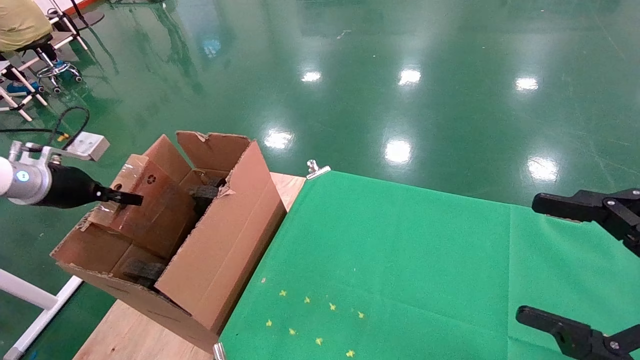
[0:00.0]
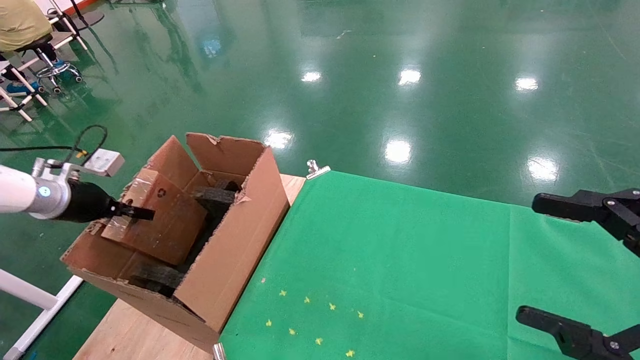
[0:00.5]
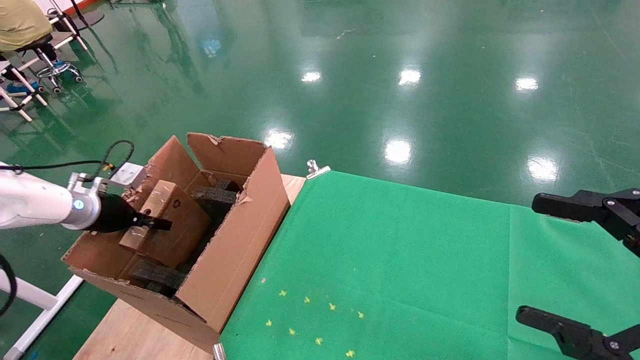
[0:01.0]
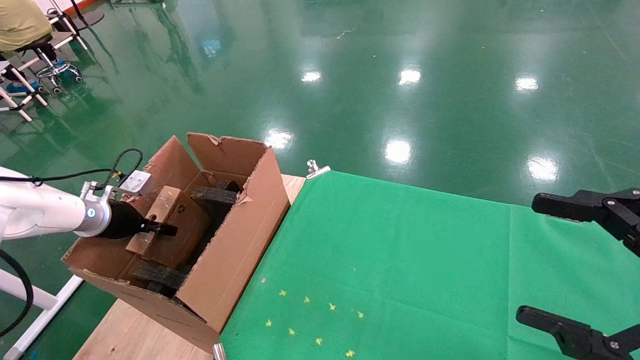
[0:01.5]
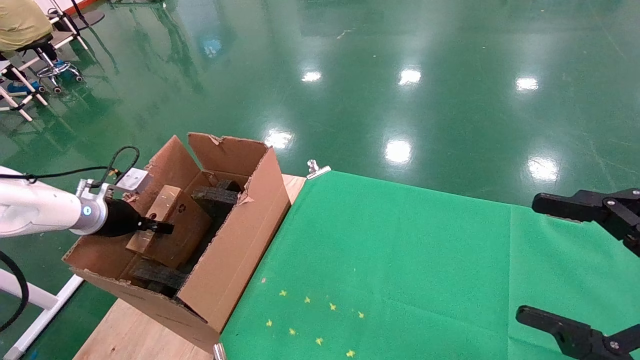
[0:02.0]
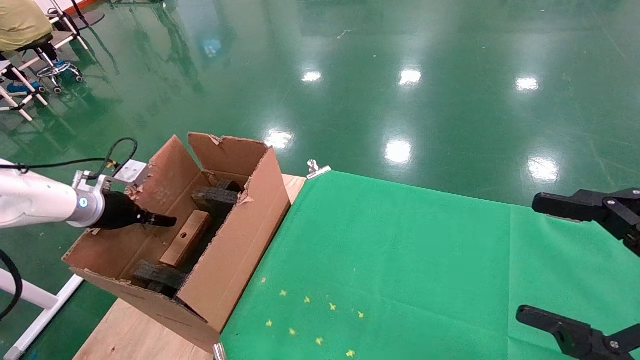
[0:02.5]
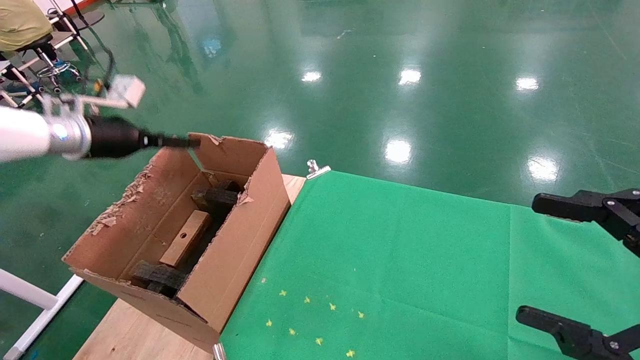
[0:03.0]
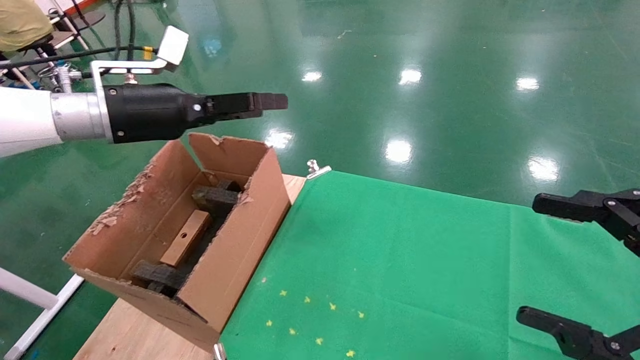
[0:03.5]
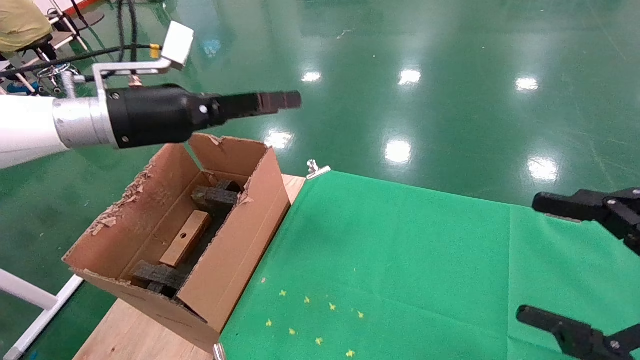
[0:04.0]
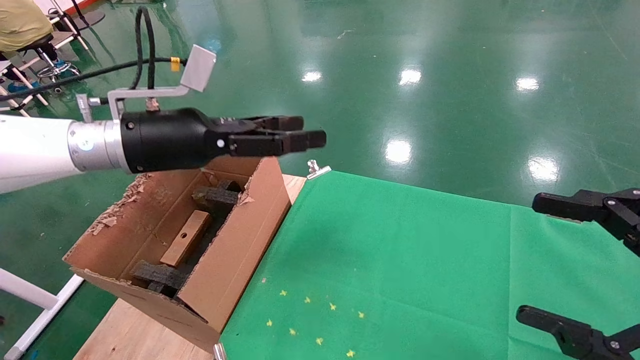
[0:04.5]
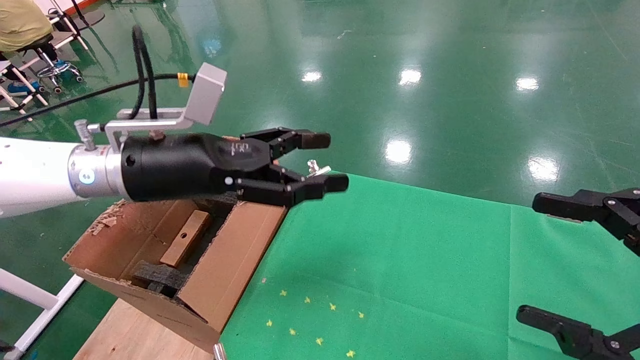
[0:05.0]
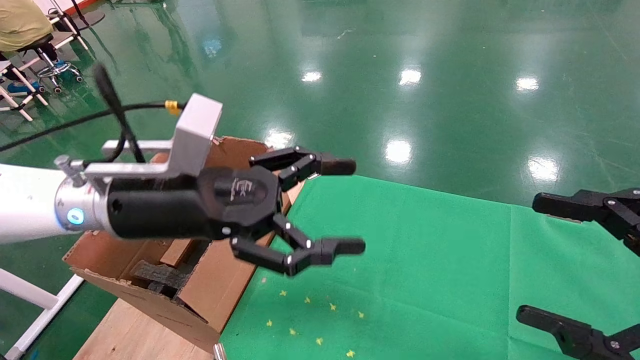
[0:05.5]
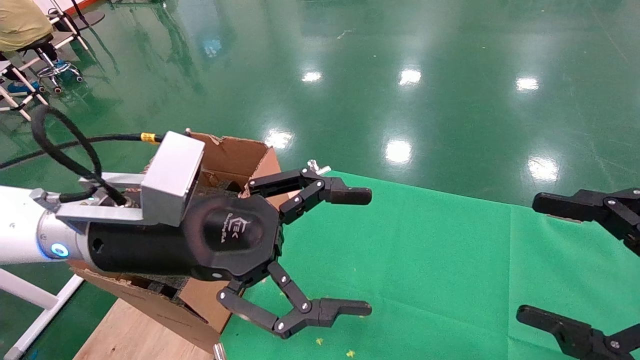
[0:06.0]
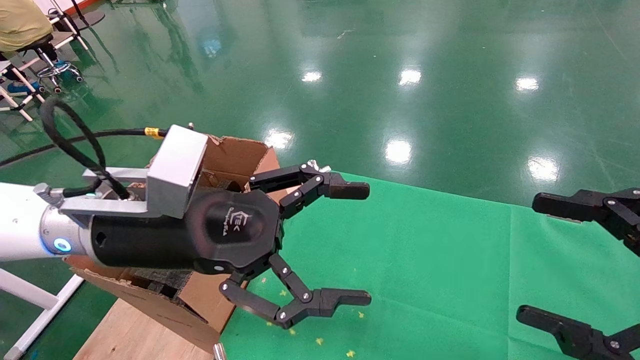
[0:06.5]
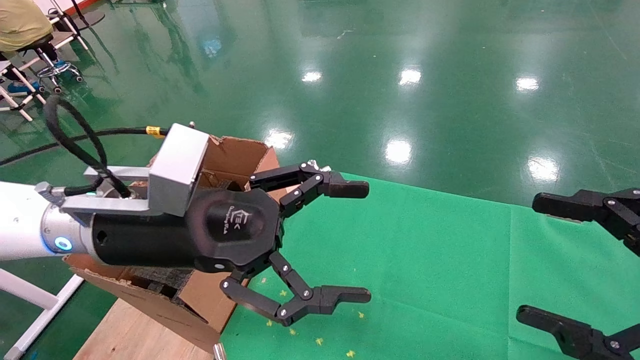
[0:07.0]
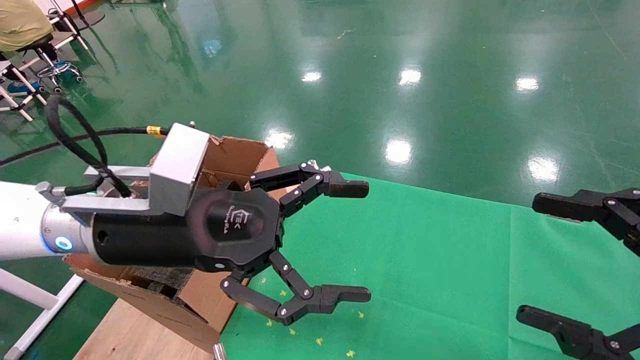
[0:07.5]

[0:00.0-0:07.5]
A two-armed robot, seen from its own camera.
Task of the whole recording: using a robotic arm to pick up a cardboard box and palace it the carton.
Step, 0:00.0 to 0:02.5: Place the mouse and the power cord paper box into the container.
0:00.0 to 0:02.0: The left gripper heads downward, covering roughly 10 cm.
0:02.0 to 0:04.0: The left gripper goes about 25 cm upward and to the right, and opens its fingers.
0:04.0 to 0:05.5: The left gripper is displaced to the right, backward and downward by approximately 15 cm.
0:05.5 to 0:07.5: The grippers make only small movements.
